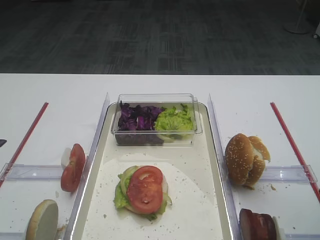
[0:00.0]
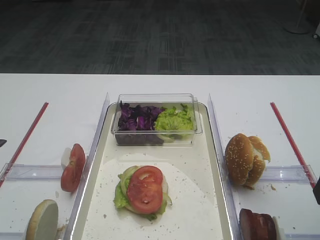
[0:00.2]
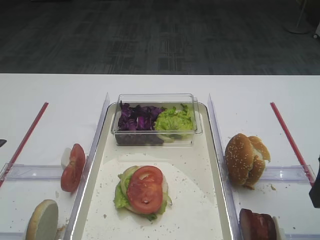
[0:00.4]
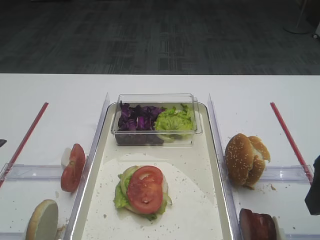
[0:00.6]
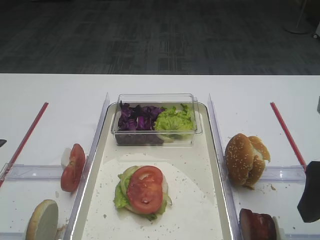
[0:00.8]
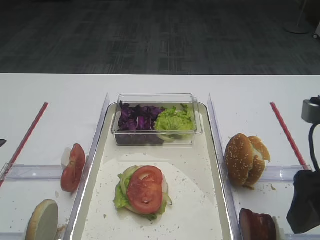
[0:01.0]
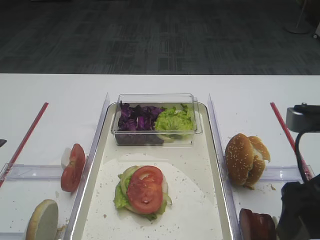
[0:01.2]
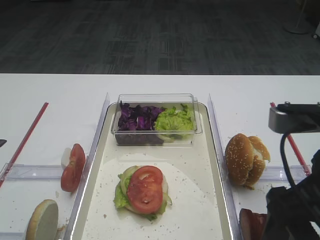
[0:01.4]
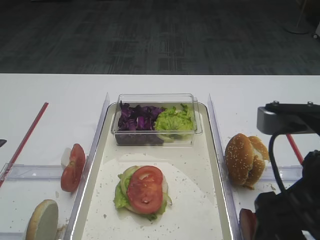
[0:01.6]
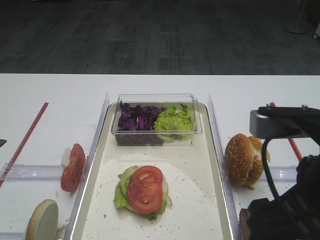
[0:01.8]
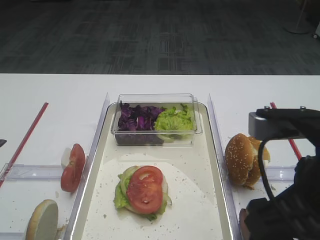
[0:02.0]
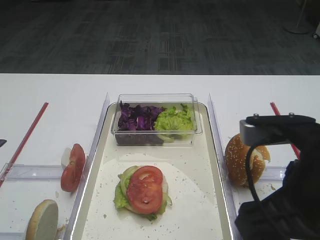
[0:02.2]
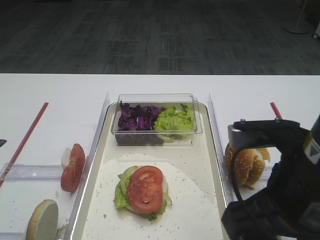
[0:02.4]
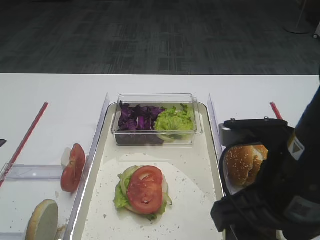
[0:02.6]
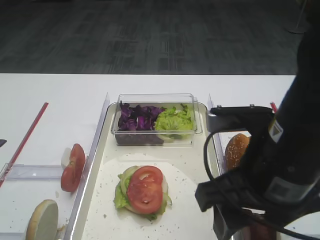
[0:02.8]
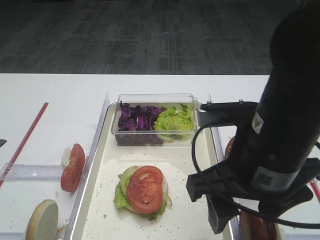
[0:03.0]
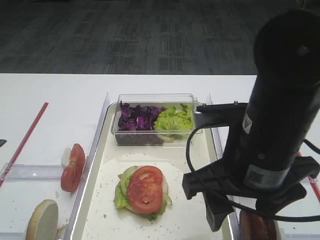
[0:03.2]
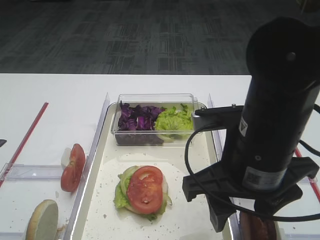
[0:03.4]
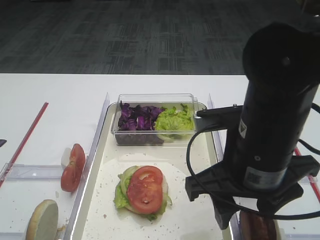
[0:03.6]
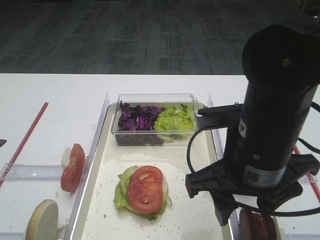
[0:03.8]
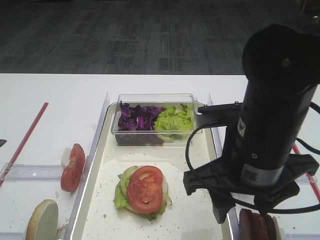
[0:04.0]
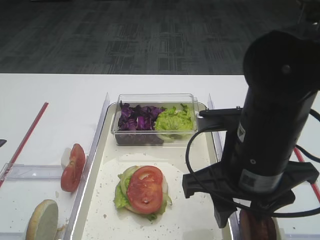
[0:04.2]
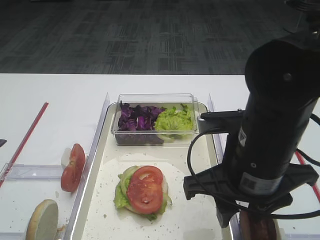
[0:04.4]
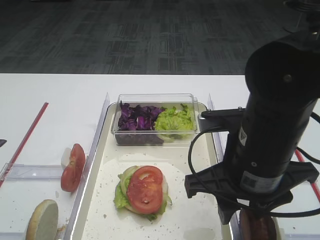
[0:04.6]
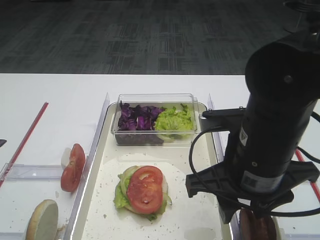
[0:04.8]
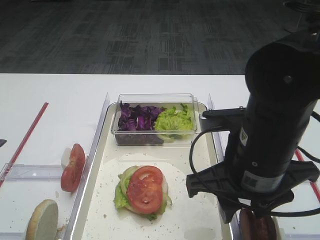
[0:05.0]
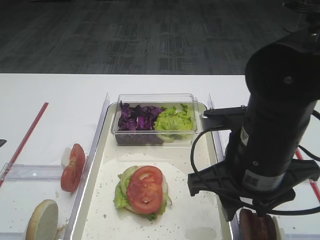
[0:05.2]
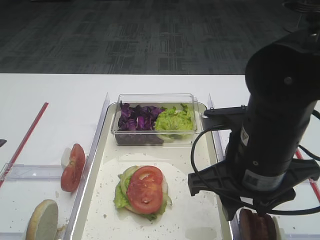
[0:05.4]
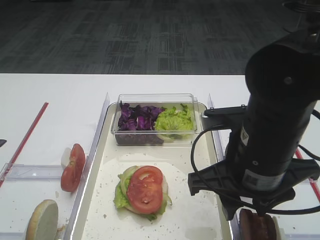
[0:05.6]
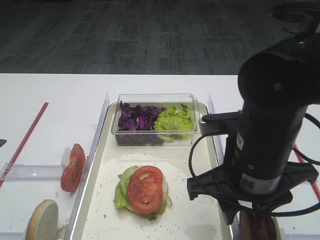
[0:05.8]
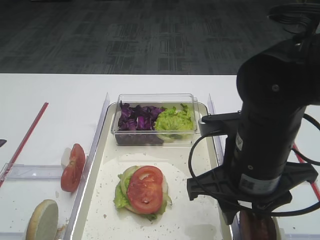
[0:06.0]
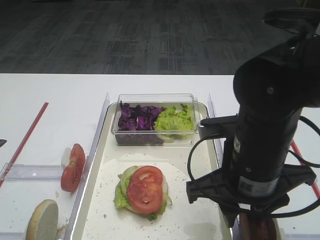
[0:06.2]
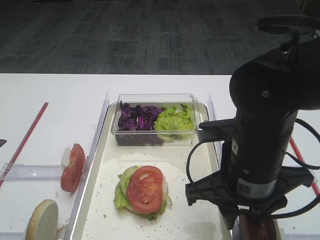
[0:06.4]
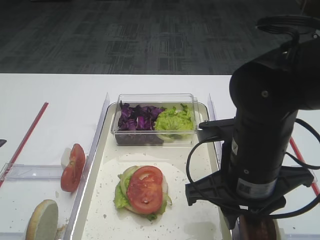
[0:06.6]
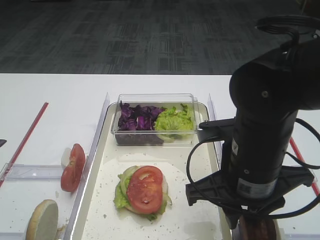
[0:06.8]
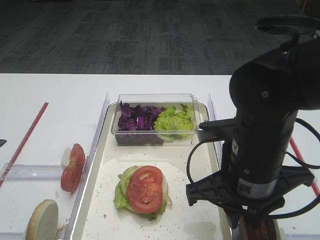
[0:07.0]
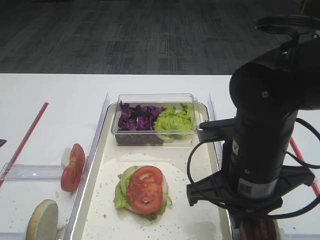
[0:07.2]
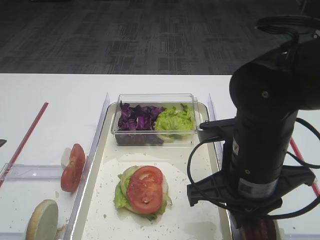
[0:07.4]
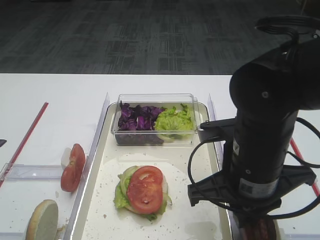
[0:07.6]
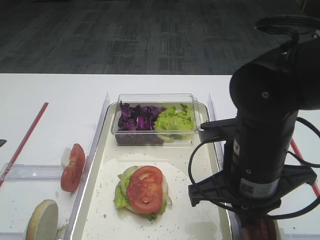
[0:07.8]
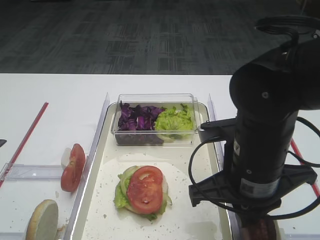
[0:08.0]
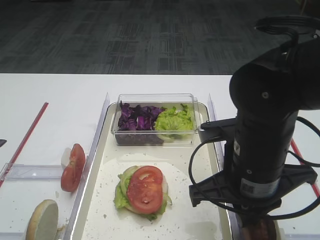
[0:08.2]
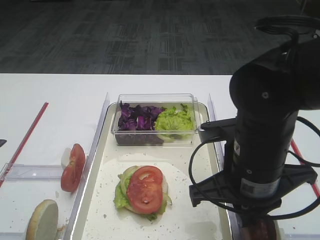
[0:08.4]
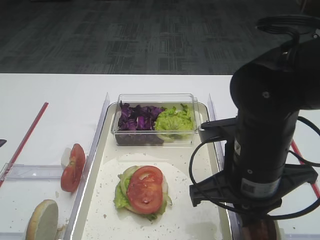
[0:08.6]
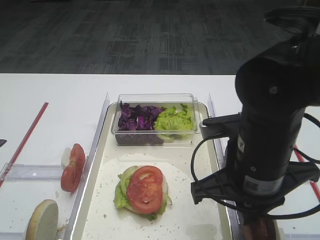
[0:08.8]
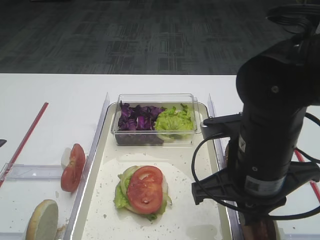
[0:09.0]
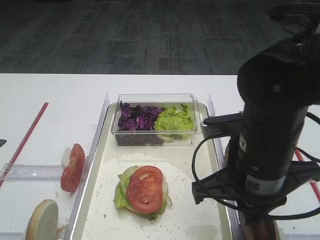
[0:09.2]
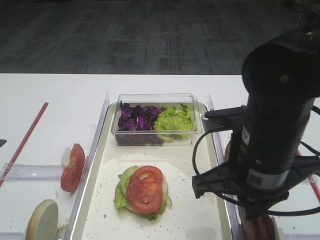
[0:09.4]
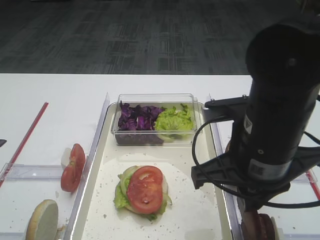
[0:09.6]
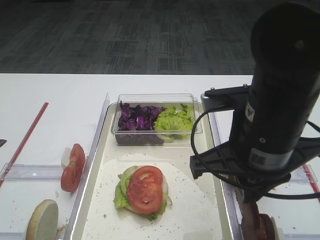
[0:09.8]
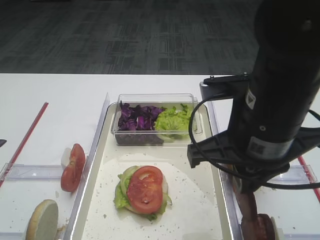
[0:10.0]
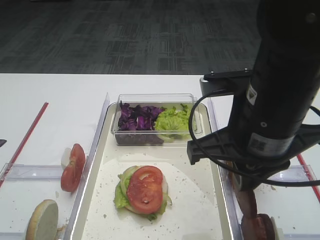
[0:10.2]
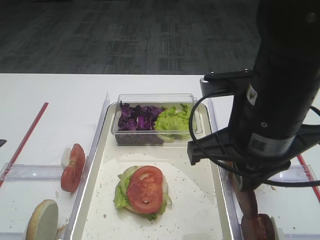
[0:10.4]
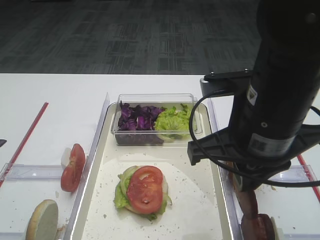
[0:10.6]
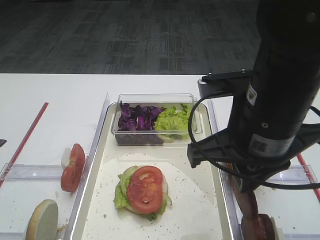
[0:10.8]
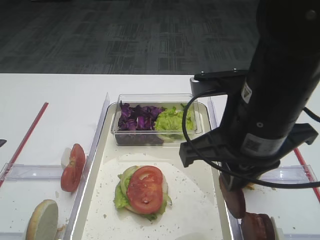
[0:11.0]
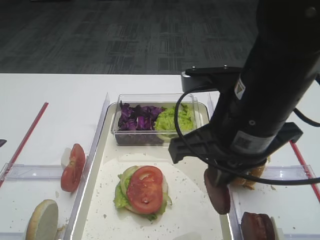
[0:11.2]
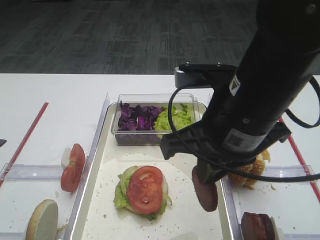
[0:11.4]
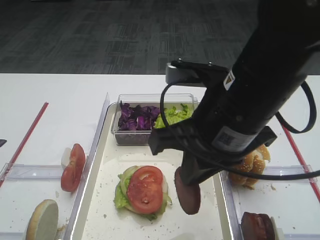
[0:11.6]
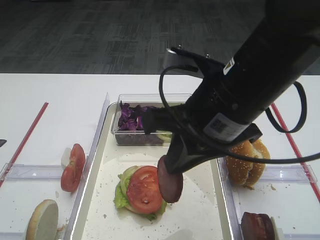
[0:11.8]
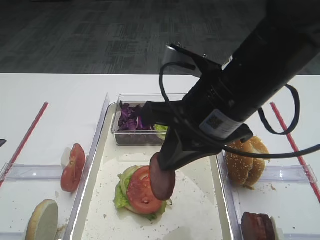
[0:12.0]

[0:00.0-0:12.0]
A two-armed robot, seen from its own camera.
Step, 0:00.0 to 0:10.0: Pick up the cutlet with the right gripper.
0:00.0 to 0:01.6: The right gripper is displaced to the left by approximately 10 cm.
0:01.6 to 0:03.0: The right gripper shifts some 5 cm to the left.
0:03.0 to 0:04.4: The grippers stay close to where they were, moving slightly.
0:04.4 to 0:06.0: Both grippers stay put.
0:06.0 to 0:07.6: The right gripper closes up.
0:07.6 to 0:09.0: Neither gripper changes place.
0:09.0 to 0:10.4: The right gripper travels upward by roughly 5 cm.

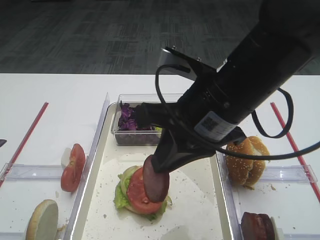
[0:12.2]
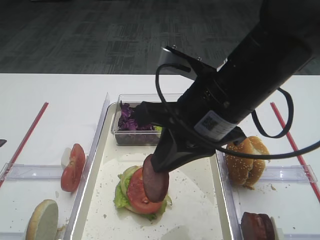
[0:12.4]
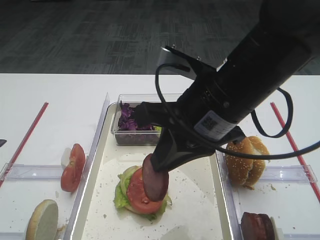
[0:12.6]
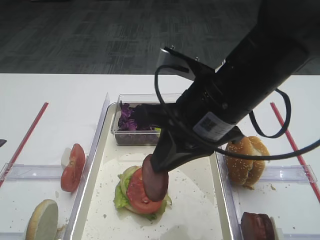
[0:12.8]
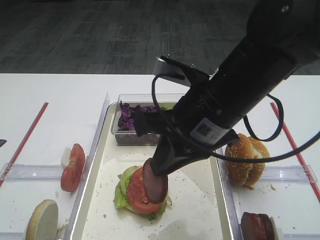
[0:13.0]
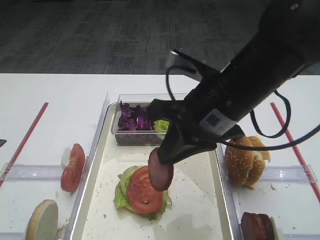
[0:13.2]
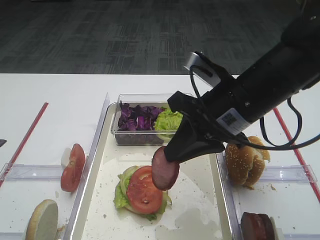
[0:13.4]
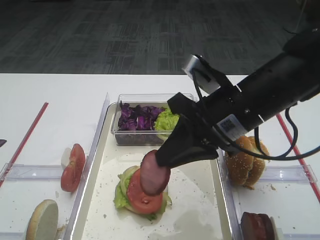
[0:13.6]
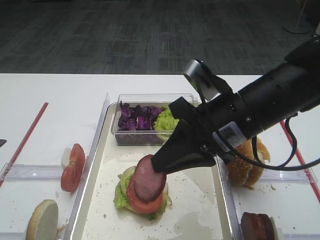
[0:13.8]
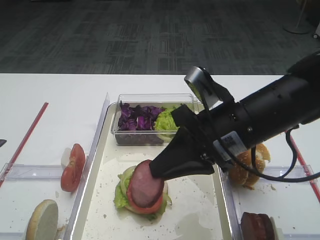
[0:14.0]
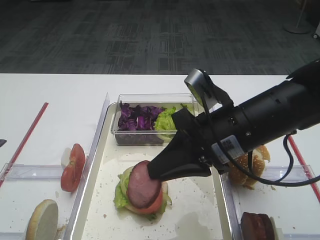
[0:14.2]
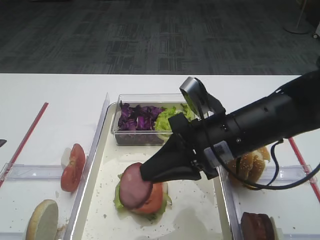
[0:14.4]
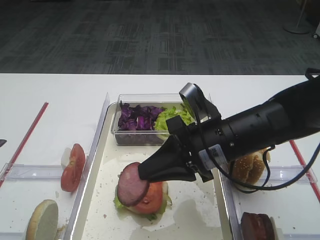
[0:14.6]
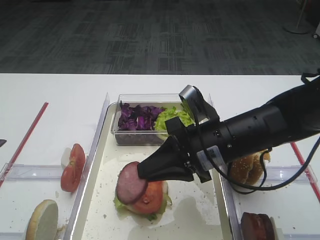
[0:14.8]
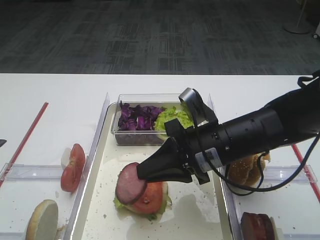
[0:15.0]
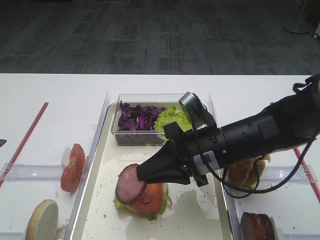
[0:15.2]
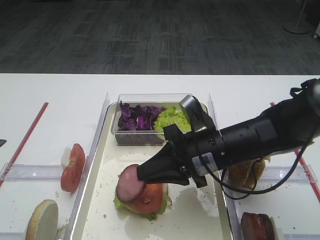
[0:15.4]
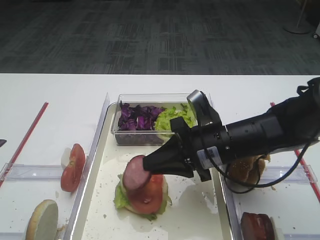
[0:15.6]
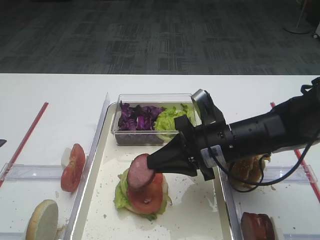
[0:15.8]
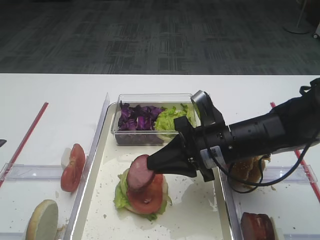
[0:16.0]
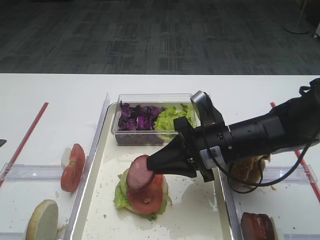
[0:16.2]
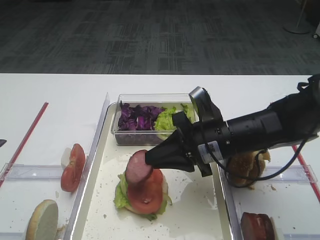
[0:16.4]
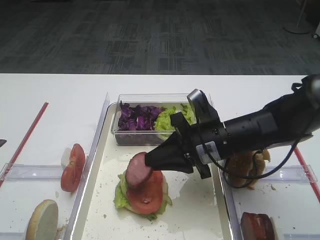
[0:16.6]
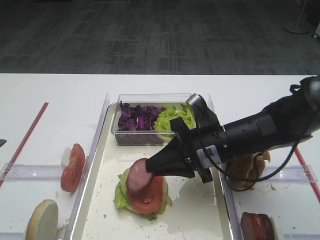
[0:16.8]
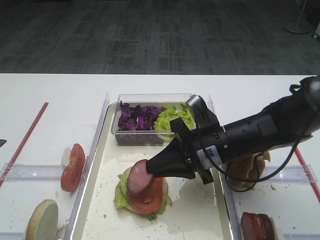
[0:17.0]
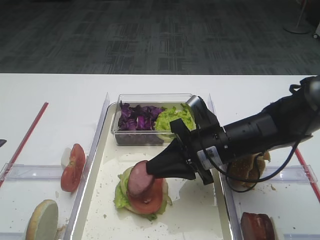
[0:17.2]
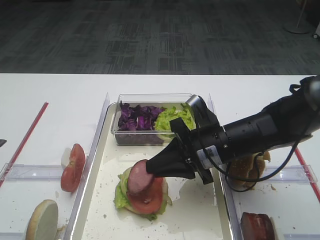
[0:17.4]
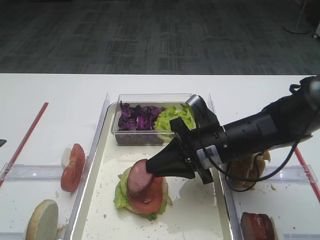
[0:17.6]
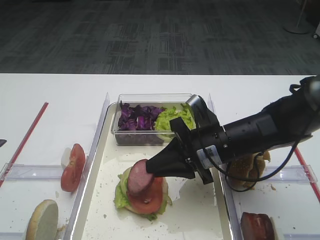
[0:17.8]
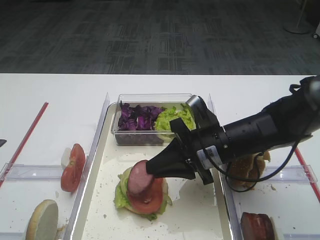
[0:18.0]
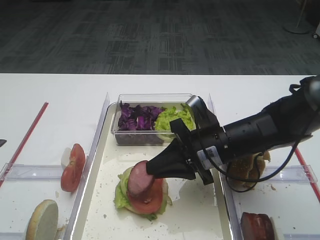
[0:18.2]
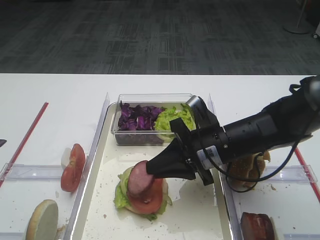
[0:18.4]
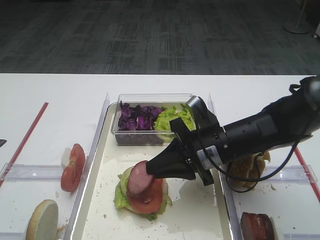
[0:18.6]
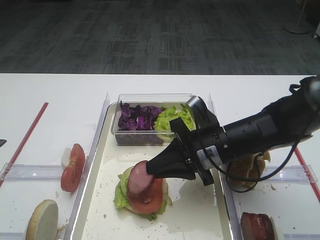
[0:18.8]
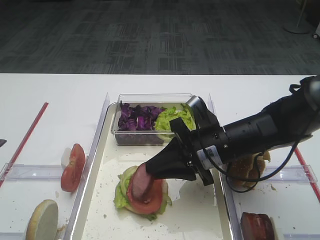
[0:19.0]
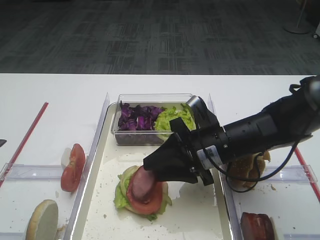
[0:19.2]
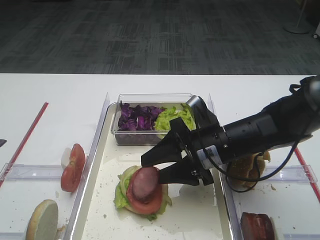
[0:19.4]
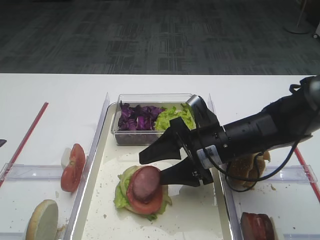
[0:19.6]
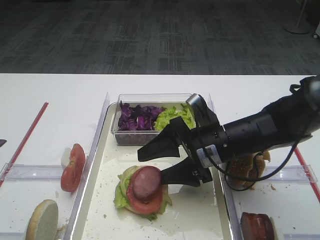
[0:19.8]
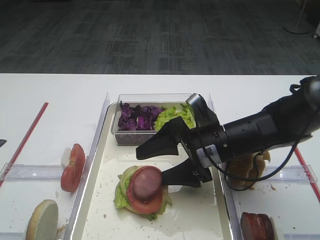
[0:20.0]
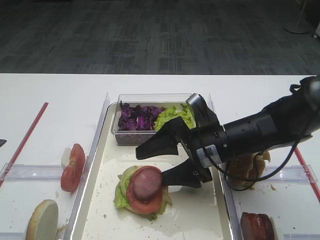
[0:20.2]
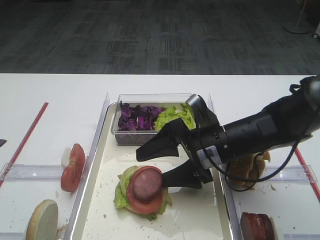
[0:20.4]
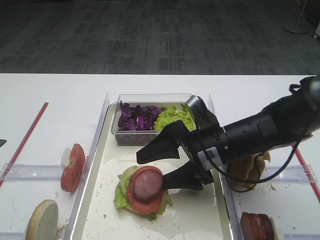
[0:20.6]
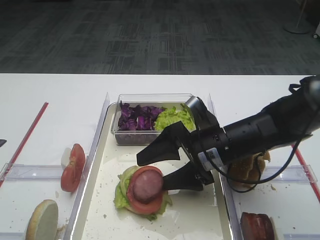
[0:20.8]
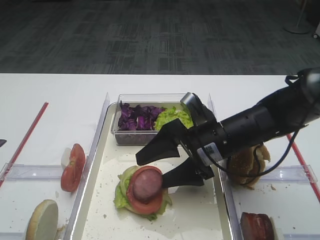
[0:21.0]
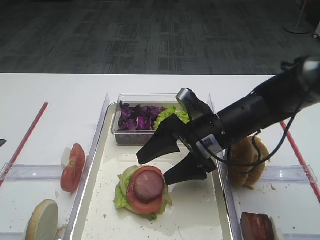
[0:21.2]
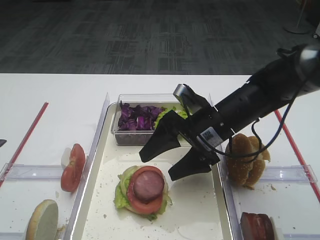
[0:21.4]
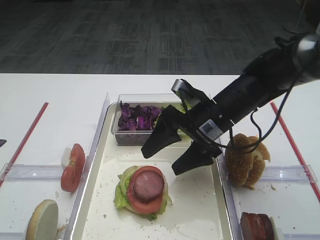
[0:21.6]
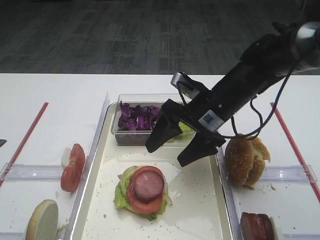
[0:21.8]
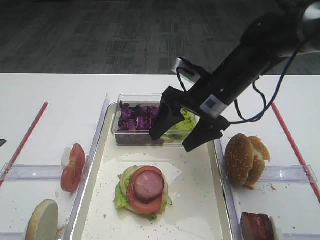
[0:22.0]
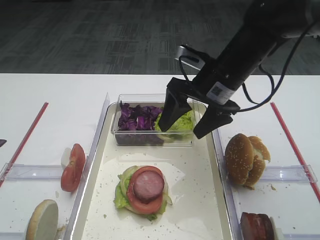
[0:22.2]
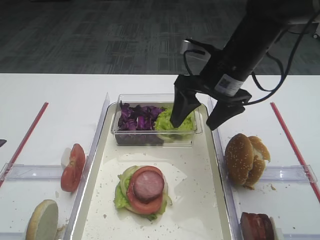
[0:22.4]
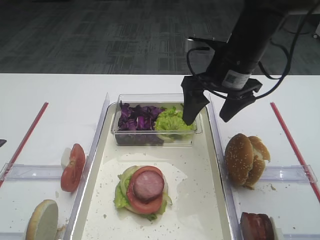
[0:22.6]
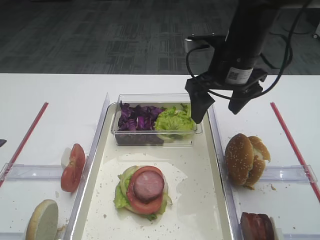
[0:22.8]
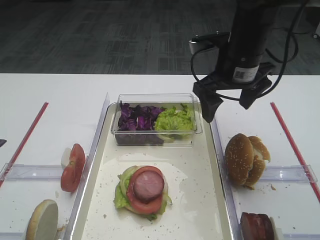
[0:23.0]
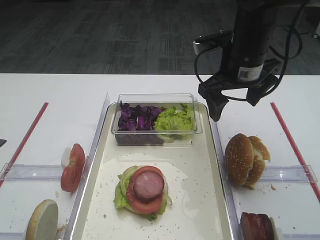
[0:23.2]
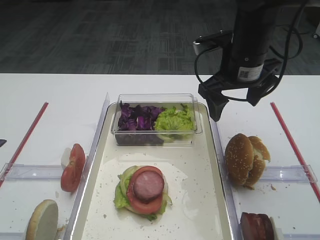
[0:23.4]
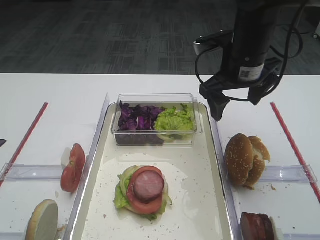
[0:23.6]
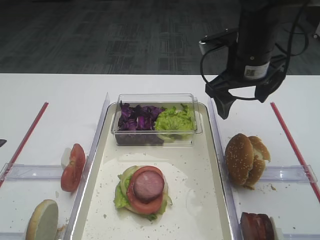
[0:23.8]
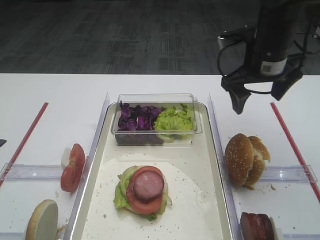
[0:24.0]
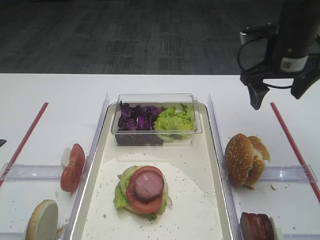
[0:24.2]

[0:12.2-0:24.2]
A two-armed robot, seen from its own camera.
Step, 0:12.2 to 0:21.4: Place the cutlet on the tomato slice with the right gripper.
0:12.2 to 0:13.8: The right gripper shifts by roughly 5 cm.
0:13.8 to 0:15.2: The right gripper shifts approximately 10 cm downward.
0:15.2 to 0:16.6: The grippers move only a little.
0:16.6 to 0:18.2: Both grippers stay put.
0:18.2 to 0:19.8: The right gripper opens its fingers.
0:19.8 to 0:21.2: The grippers move only a little.
0:21.2 to 0:22.6: The right gripper heads upward and forward, covering about 10 cm.
0:22.6 to 0:24.2: The right gripper goes roughly 10 cm to the right.
